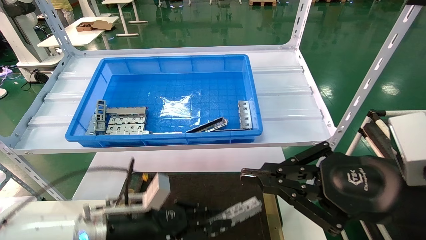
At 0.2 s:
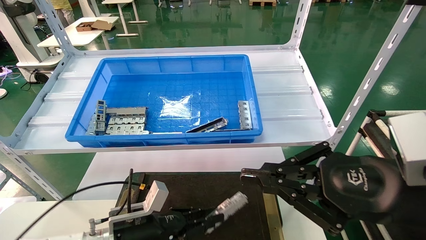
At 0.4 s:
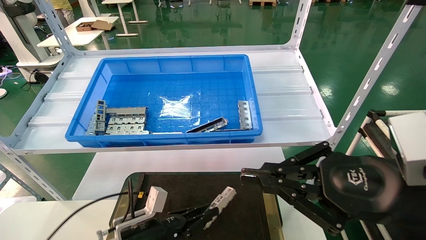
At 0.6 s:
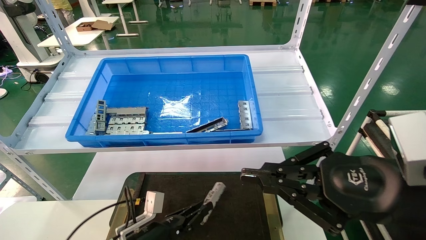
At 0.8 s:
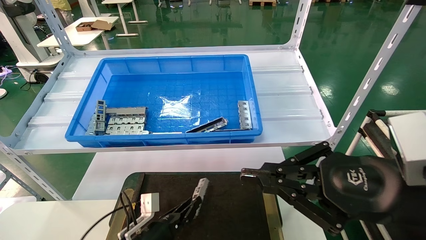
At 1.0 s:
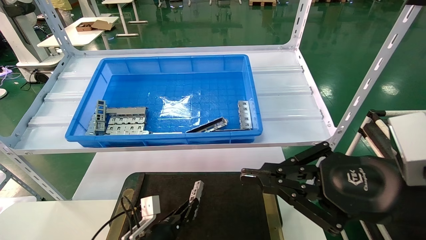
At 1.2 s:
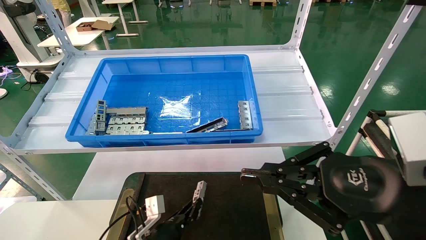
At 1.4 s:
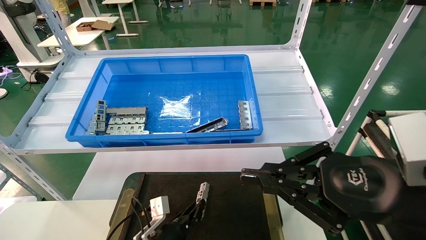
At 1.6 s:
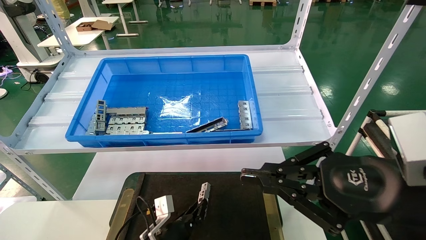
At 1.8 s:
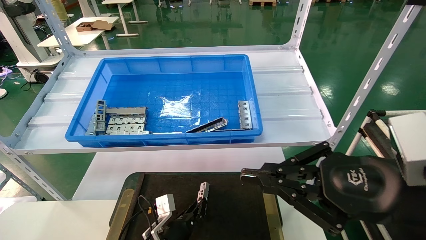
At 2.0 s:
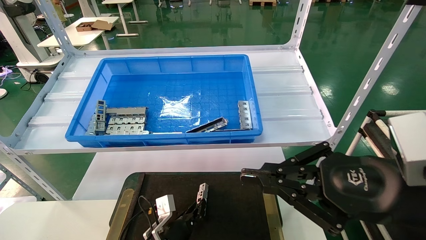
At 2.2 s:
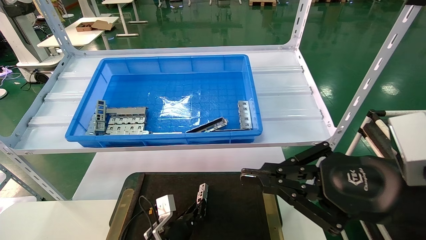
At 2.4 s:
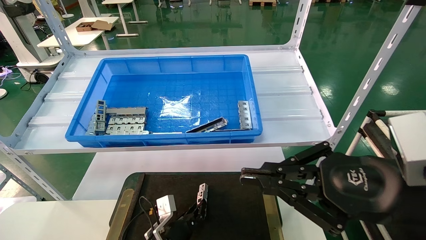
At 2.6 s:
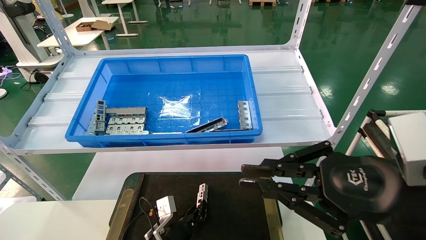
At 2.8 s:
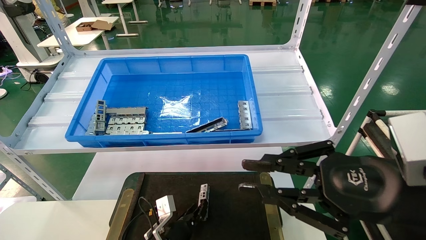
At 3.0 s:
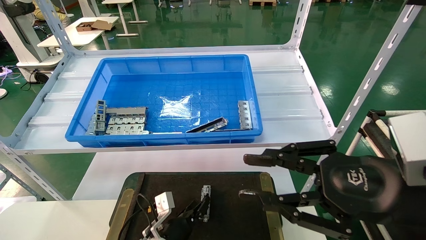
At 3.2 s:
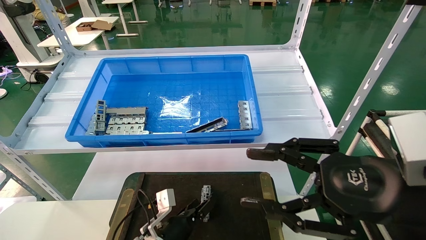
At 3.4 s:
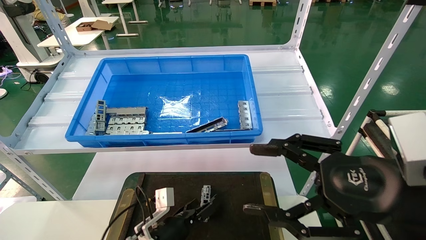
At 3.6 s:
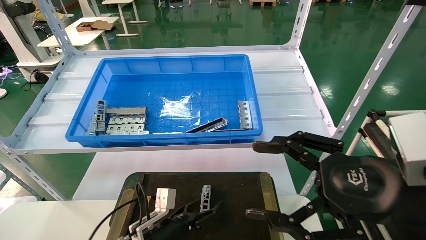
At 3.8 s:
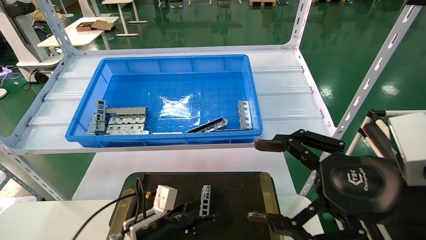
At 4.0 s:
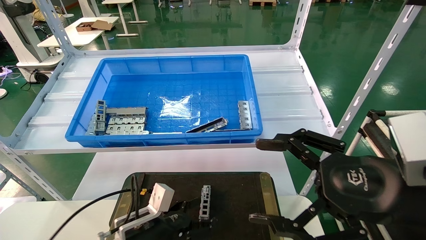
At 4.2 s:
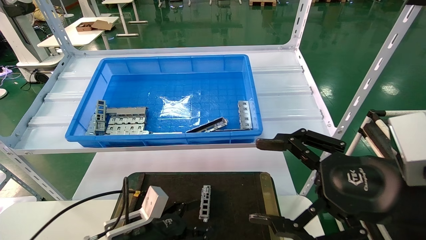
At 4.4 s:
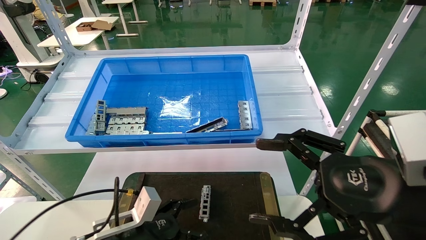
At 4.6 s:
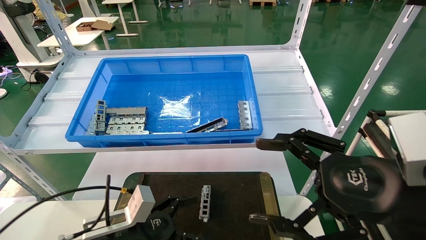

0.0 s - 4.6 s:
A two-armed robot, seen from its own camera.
Task of the whole recording: Grasp the part with one hand and place it on the black container.
Step, 0.0 s - 2.6 s: Place the front USB bracket into the box.
0.0 s - 1.6 s: The left gripper heads downward and to the right, covering roughly 15 cm.
1.6 s - 3.0 s: There are only small adjustments of the grippers.
3.0 s - 4.6 s: The left gripper is displaced upward, backward and to the left by roughly 20 cm, and opens up. The right gripper opens its fingers.
